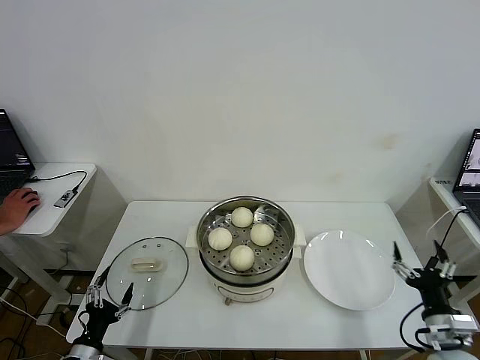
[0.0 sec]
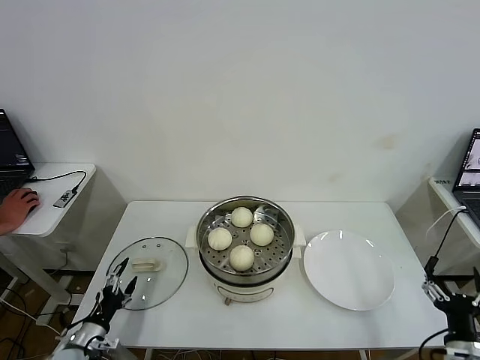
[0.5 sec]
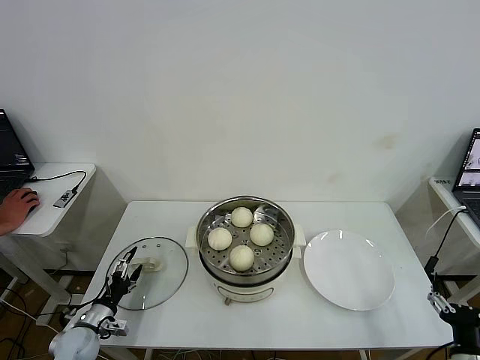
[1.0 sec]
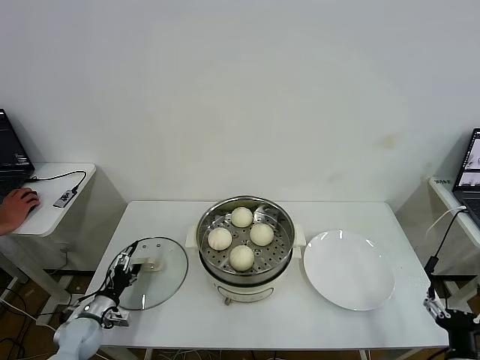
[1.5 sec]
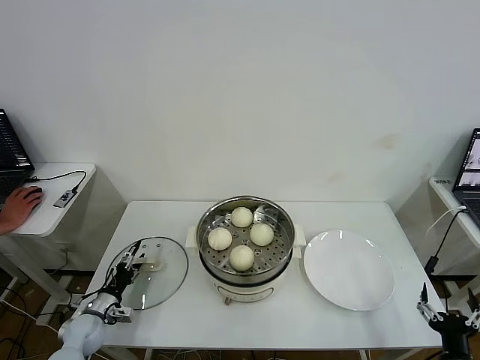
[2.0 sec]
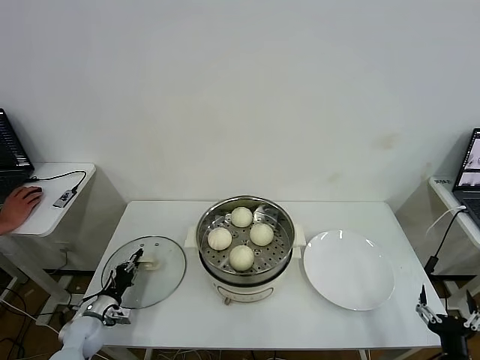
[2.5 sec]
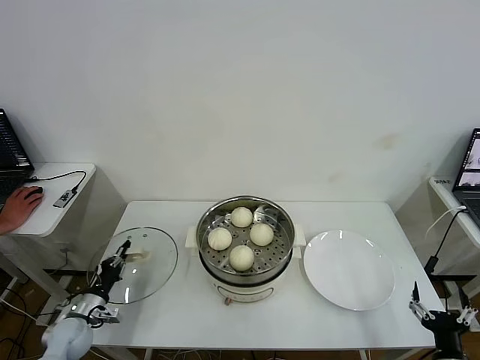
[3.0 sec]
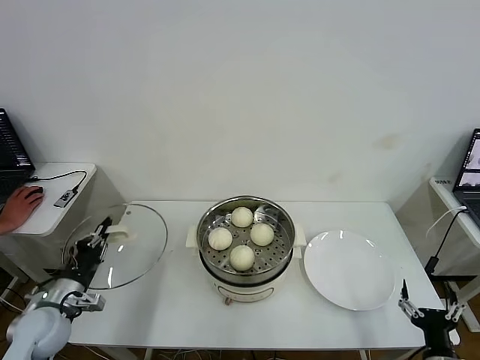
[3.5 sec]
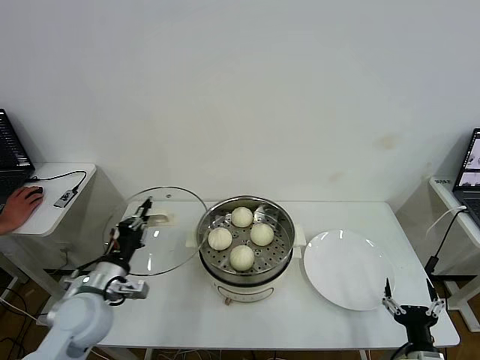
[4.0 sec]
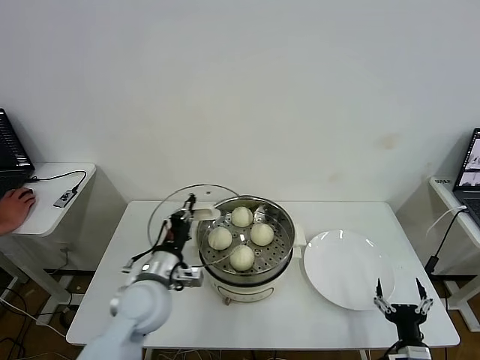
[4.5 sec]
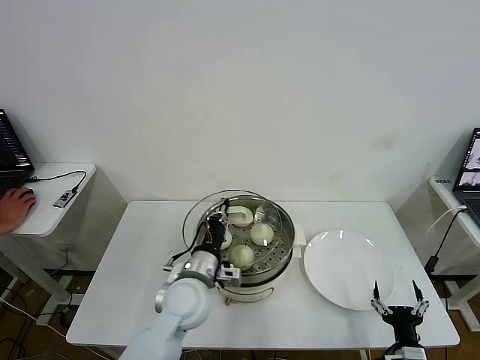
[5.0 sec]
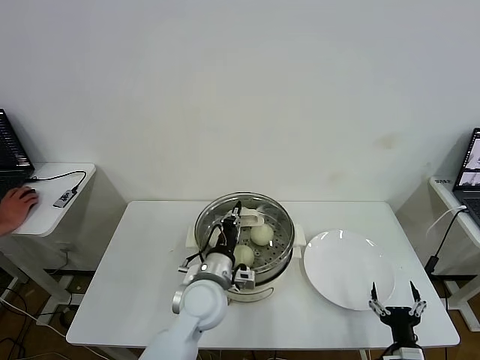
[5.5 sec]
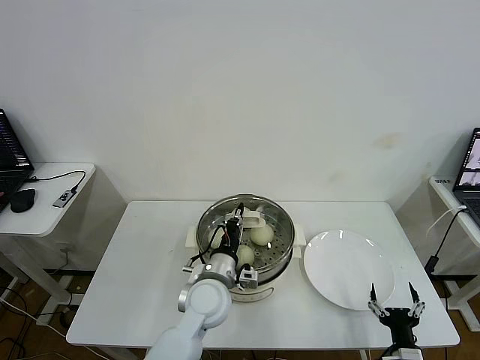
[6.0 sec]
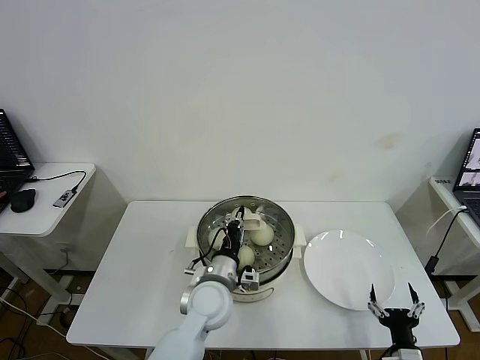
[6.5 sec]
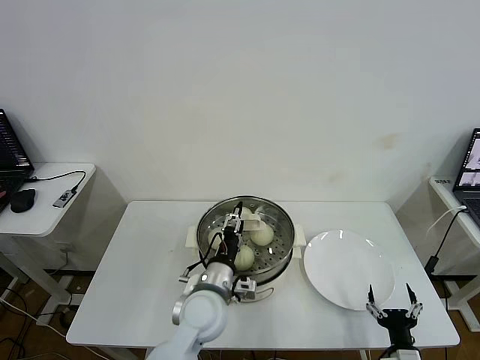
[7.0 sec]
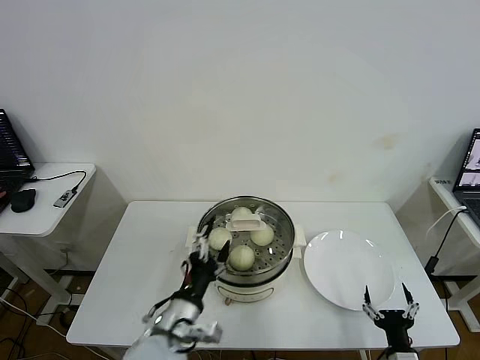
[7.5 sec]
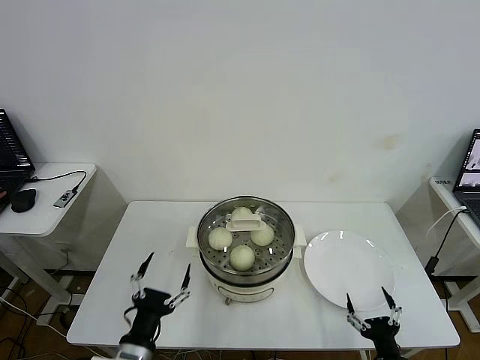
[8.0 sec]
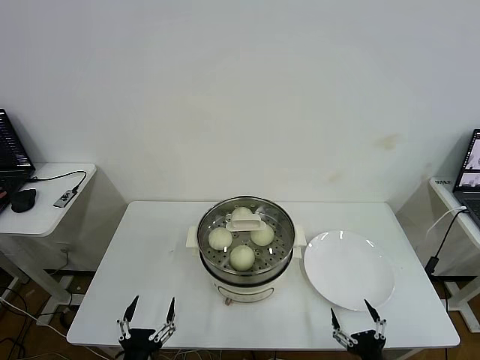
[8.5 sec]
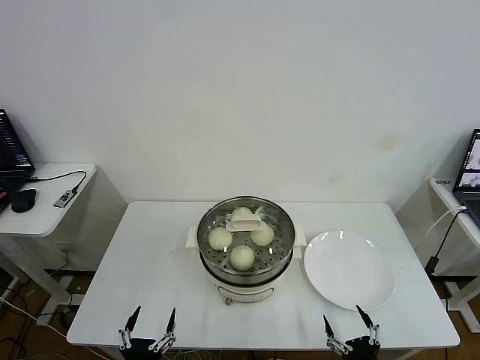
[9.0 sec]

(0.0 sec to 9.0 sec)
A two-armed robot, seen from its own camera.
Task of the whole recording: take steamed baozi put them in steamer then cover it.
Step, 0.0 sec - 2.5 sec: Grasp the pot lid with left gripper.
Step, 3.0 sec - 6.5 sec: Place the pot lid on the steamer with left gripper.
0.0 sec - 2.0 sec: The left gripper is displaced forward by some 15 cm, while the right gripper shifts roughly 5 cm backward.
2.0 sec - 4.5 sec: The right gripper changes place by roughly 5 cm; the left gripper moves upward and to the right, approximately 30 cm, and closes up.
4.5 sec - 7.0 sec: The left gripper is displaced to the right by about 10 cm, and opens its fingers.
7.0 sec - 9.0 sec: The left gripper moves backward and to the left, roughly 30 cm, and opens up; the right gripper travels backward by about 5 cm.
